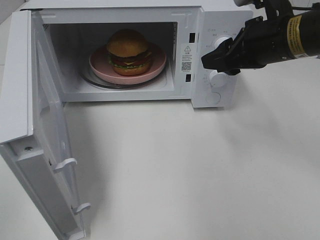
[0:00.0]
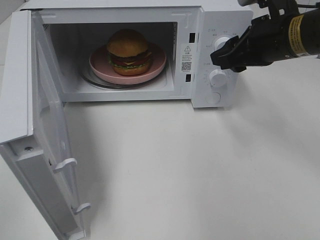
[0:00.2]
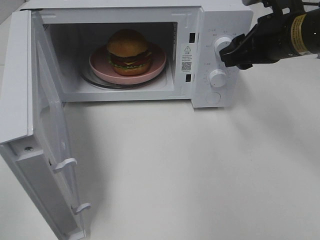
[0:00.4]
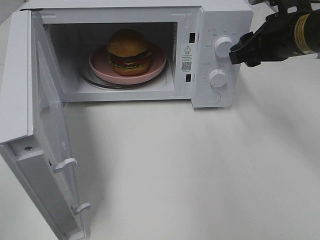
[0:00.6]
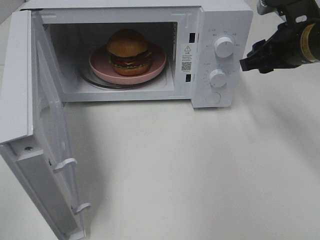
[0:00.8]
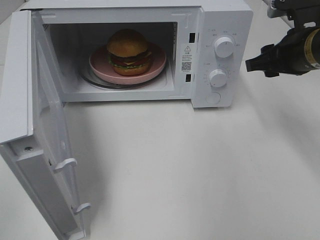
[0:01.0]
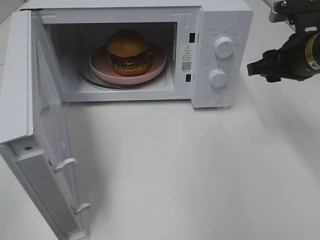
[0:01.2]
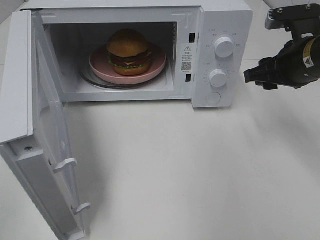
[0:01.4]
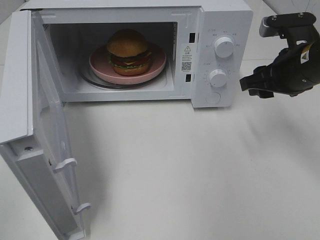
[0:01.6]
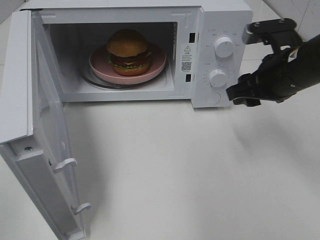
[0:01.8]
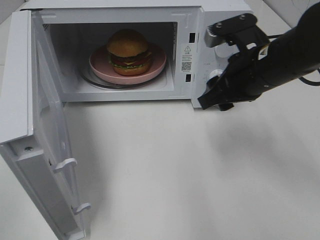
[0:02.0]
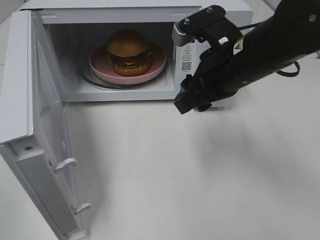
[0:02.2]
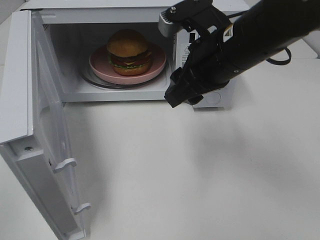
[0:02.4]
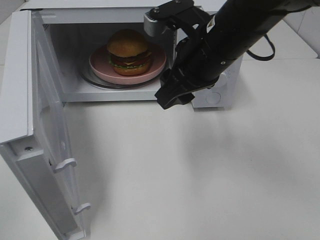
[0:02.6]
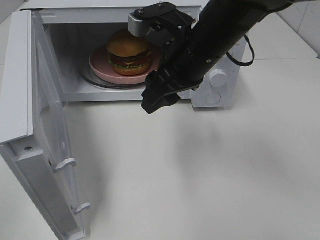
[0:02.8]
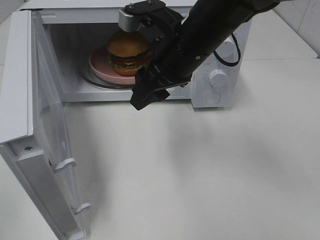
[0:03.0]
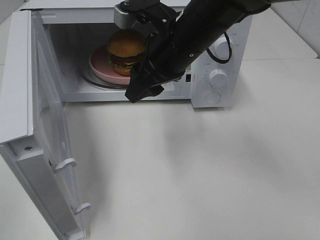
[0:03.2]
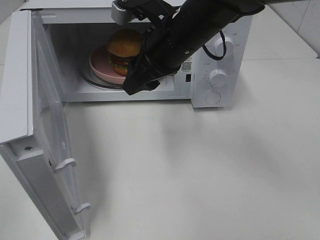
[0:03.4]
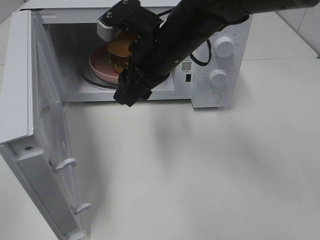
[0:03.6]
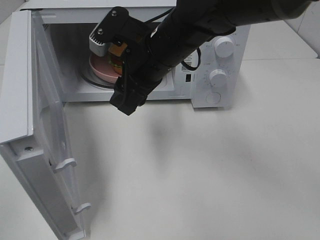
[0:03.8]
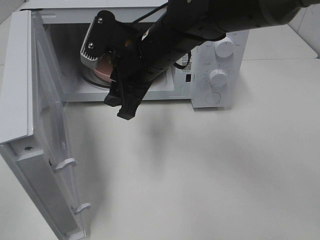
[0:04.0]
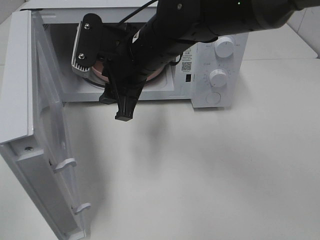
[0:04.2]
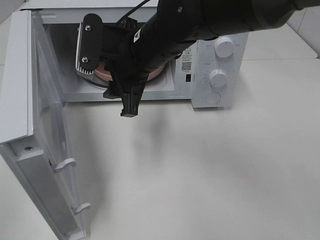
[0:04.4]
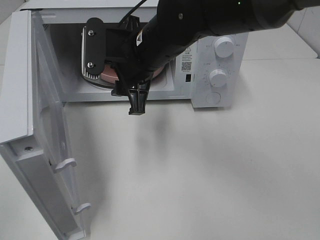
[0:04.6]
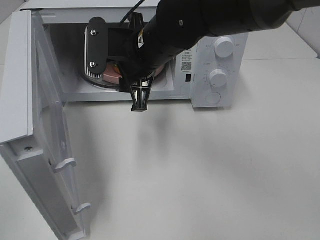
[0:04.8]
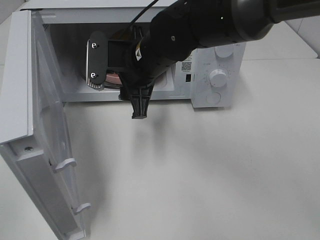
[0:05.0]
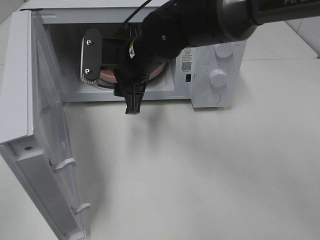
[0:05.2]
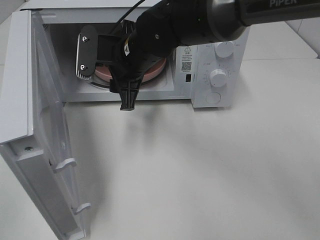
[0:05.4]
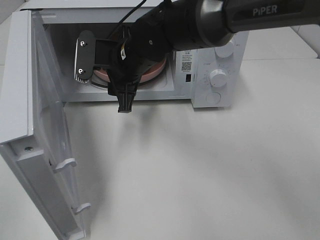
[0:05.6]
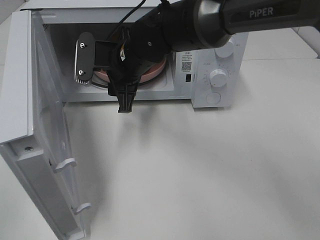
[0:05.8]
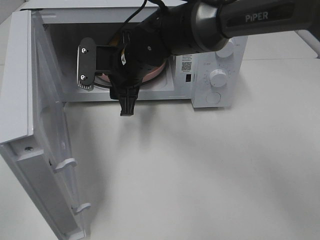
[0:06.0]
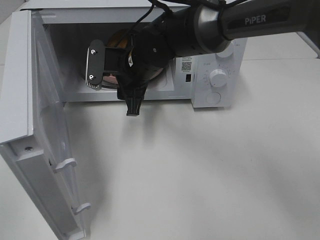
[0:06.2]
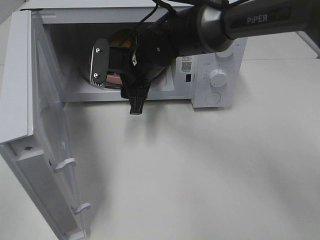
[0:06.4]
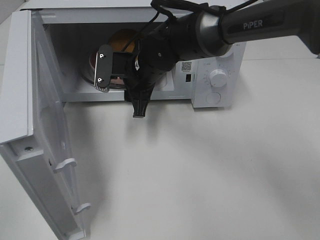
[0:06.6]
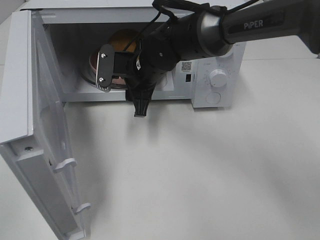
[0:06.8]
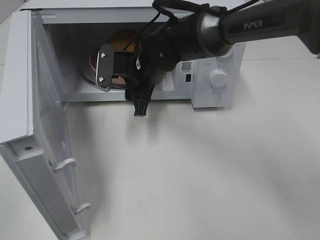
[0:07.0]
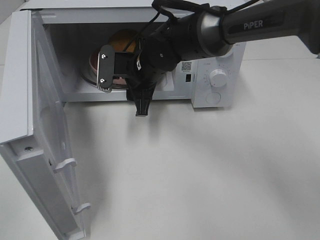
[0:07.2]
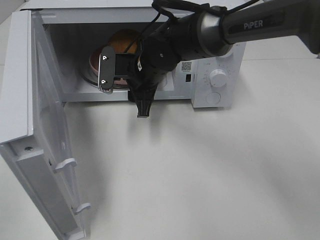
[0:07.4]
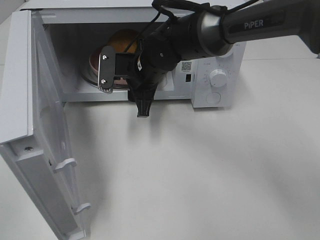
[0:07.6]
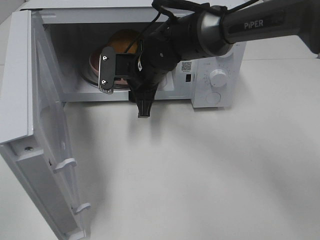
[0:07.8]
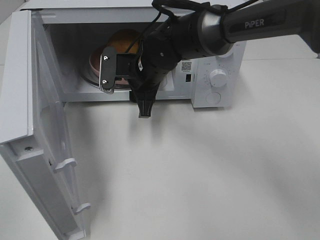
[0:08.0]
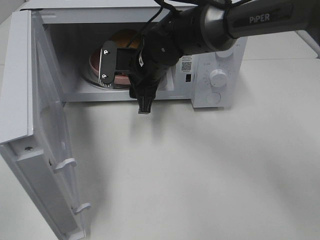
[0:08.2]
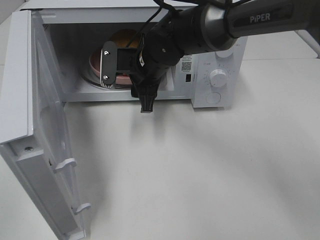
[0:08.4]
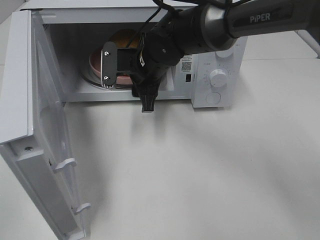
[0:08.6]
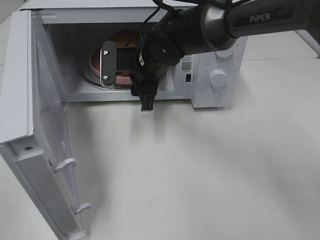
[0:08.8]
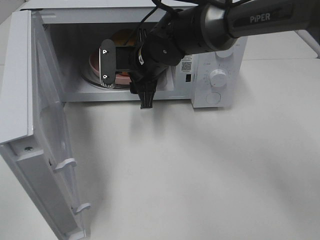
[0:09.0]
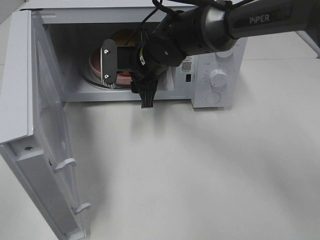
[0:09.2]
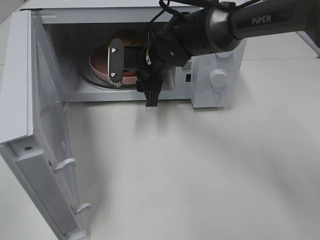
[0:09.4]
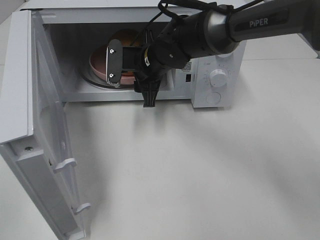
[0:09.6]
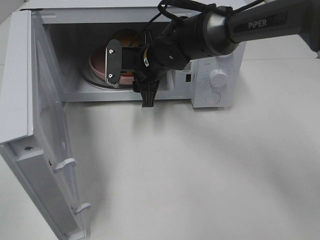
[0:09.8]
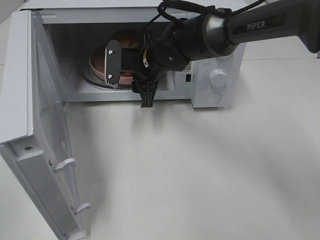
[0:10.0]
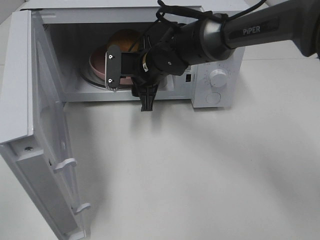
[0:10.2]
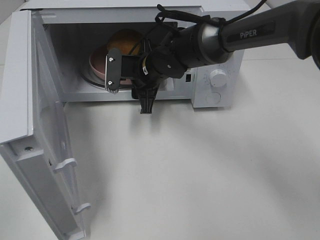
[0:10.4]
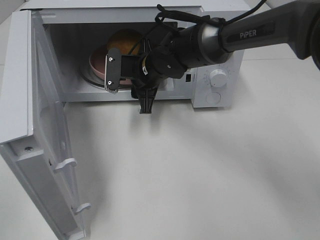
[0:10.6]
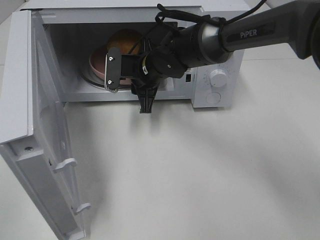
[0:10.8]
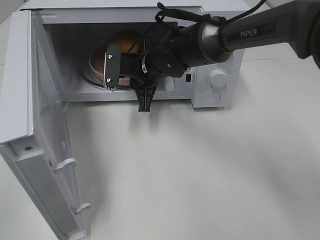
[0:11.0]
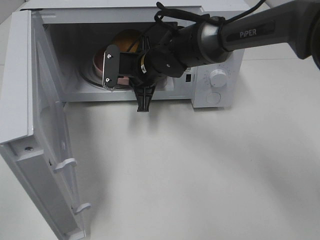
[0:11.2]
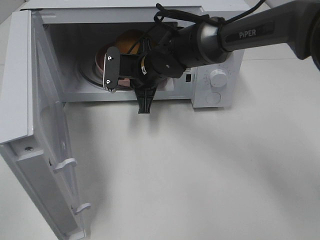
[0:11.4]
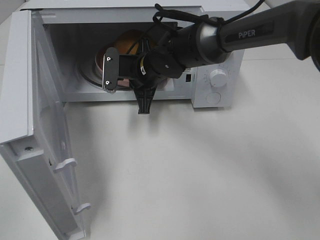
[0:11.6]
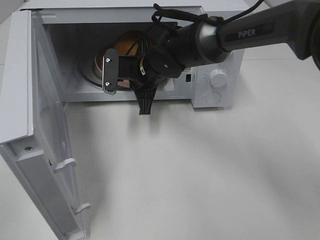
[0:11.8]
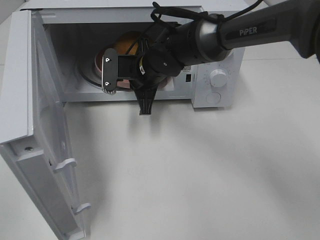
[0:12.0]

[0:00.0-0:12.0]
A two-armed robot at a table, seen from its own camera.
Task of the whole recording: Heat the burger.
Step, 0:00.0 to 0:11.2: Right hand: grab the plate with the hamburger.
0:00.0 to 0:01.6: The right gripper moves approximately 5 cm.
0:01.6 to 0:03.0: The right gripper goes approximately 20 cm to the left.
0:03.0 to 0:04.4: The right gripper shifts some 5 cm to the left.
0:04.4 to 0:06.0: The right gripper shifts by approximately 5 cm.
0:06.0 to 0:09.0: The grippers stay close to where they were, moving slightly.
0:09.0 to 0:10.4: There are only small adjustments of the grippers.
0:10.4 to 0:12.0: The right gripper closes.

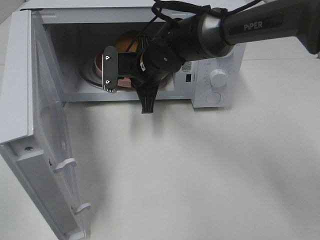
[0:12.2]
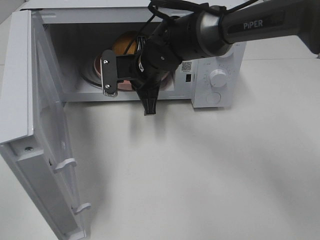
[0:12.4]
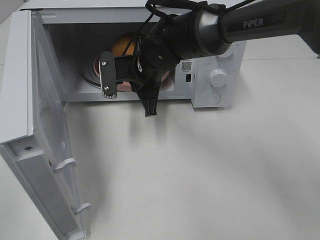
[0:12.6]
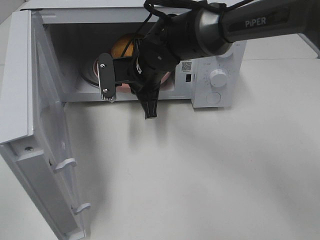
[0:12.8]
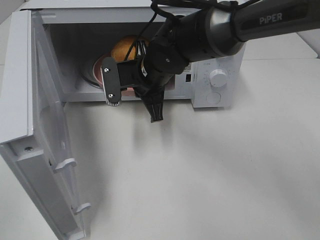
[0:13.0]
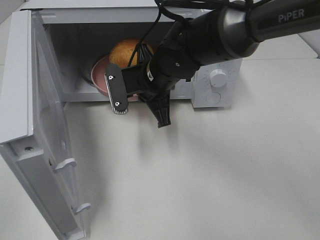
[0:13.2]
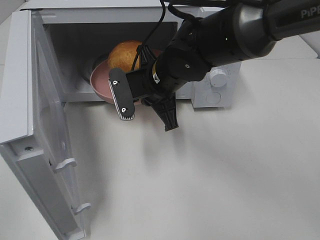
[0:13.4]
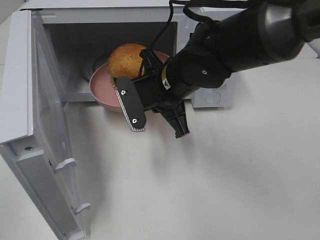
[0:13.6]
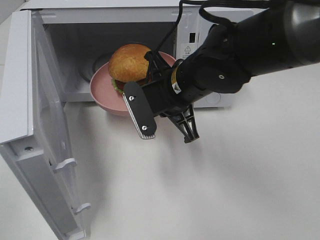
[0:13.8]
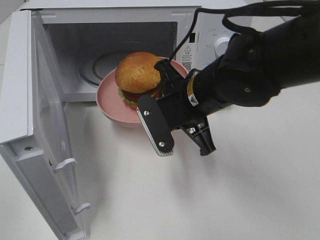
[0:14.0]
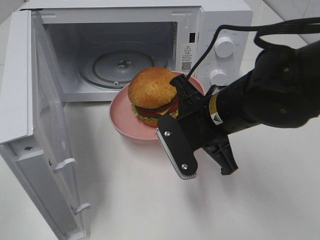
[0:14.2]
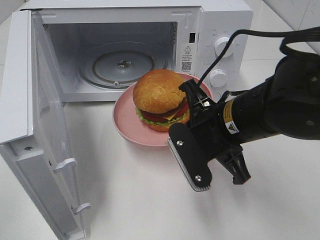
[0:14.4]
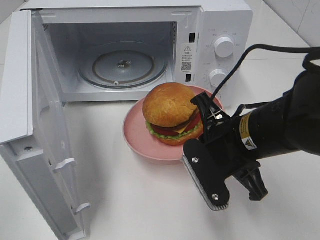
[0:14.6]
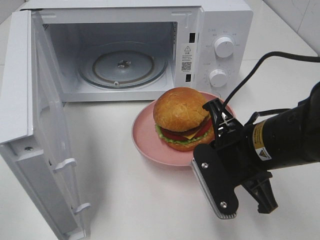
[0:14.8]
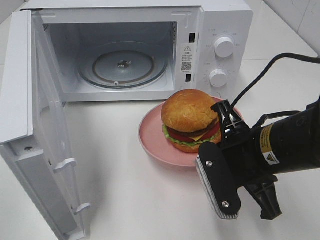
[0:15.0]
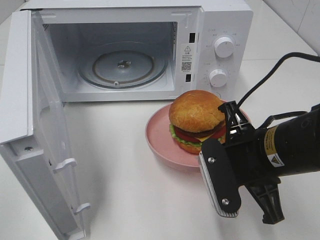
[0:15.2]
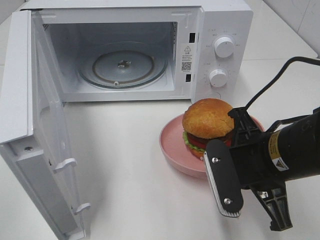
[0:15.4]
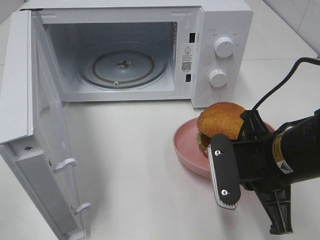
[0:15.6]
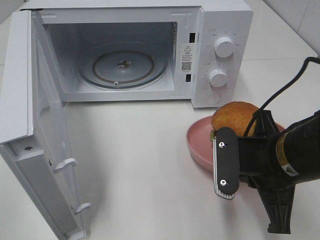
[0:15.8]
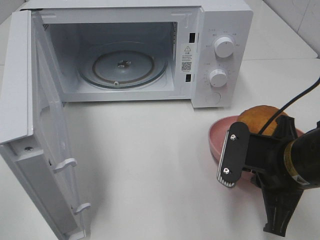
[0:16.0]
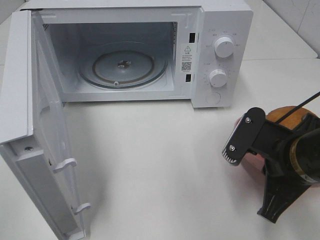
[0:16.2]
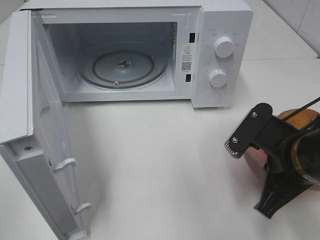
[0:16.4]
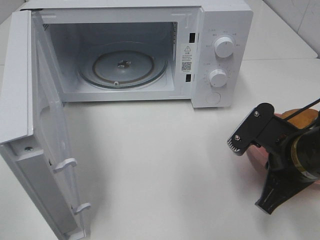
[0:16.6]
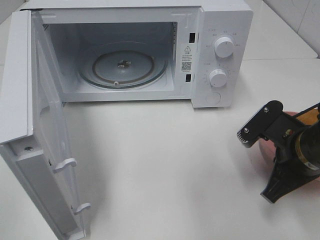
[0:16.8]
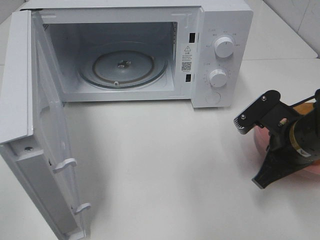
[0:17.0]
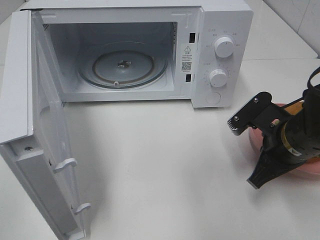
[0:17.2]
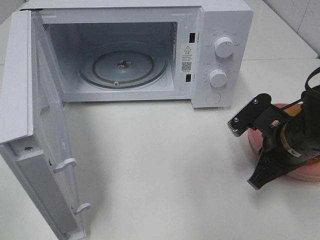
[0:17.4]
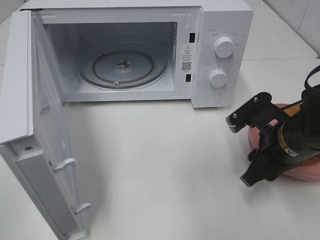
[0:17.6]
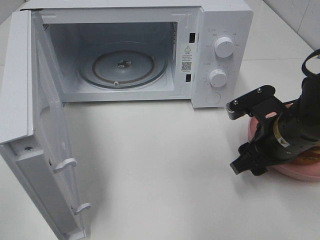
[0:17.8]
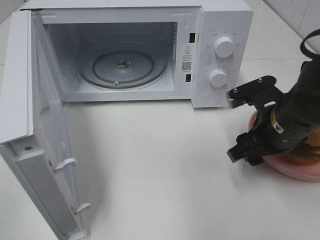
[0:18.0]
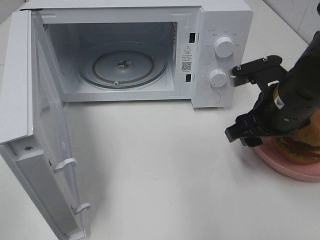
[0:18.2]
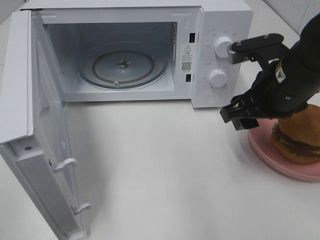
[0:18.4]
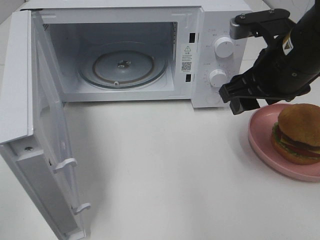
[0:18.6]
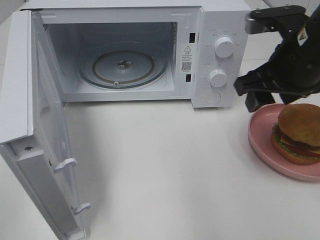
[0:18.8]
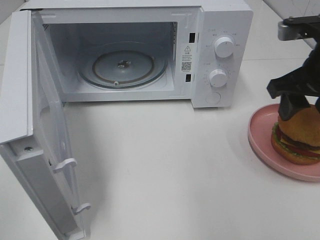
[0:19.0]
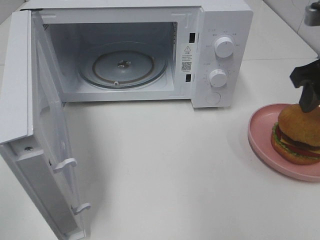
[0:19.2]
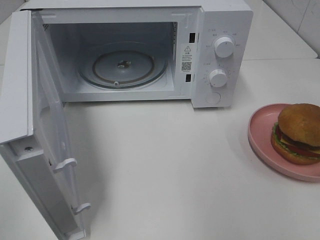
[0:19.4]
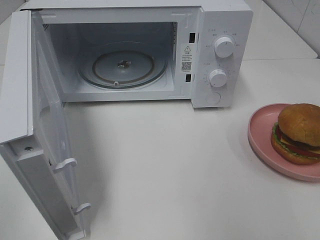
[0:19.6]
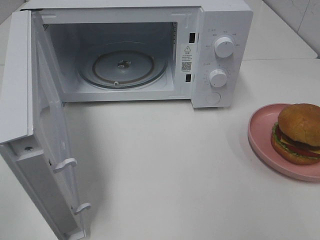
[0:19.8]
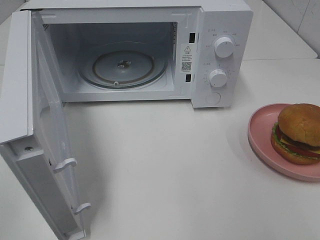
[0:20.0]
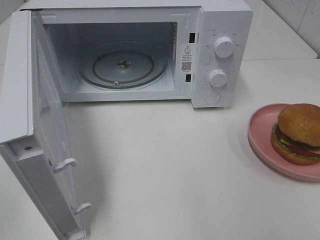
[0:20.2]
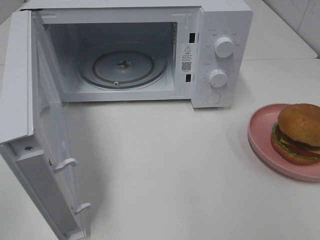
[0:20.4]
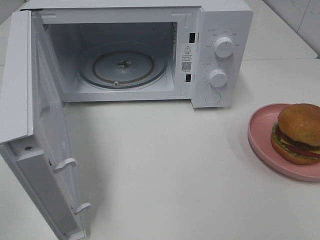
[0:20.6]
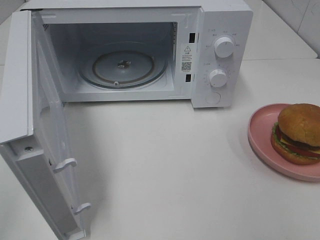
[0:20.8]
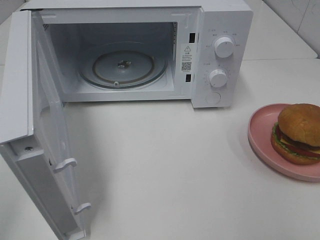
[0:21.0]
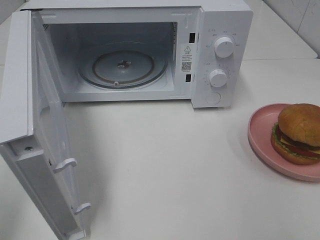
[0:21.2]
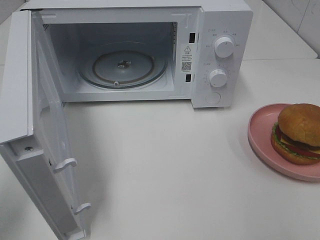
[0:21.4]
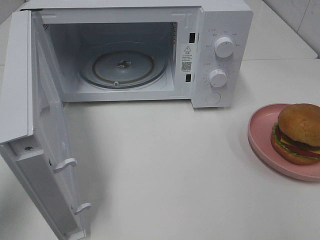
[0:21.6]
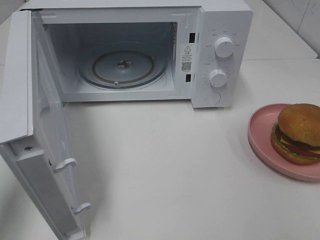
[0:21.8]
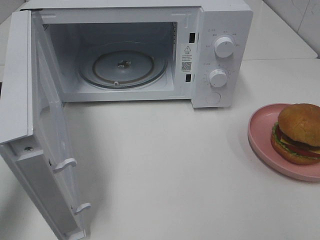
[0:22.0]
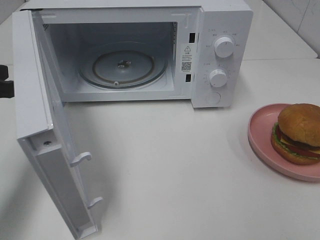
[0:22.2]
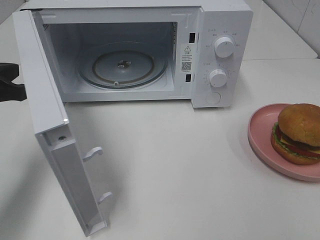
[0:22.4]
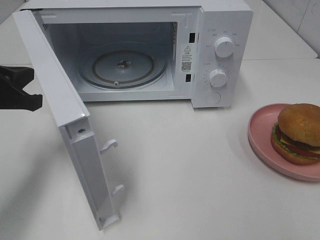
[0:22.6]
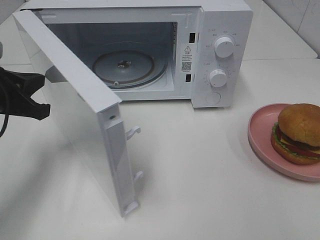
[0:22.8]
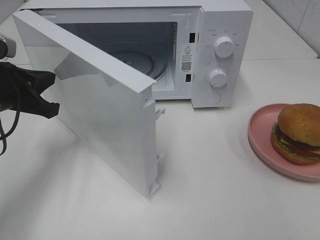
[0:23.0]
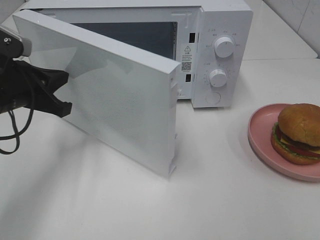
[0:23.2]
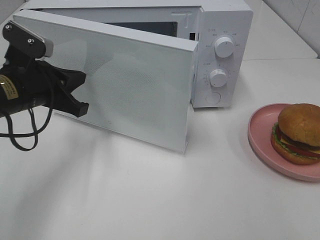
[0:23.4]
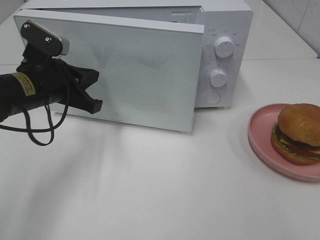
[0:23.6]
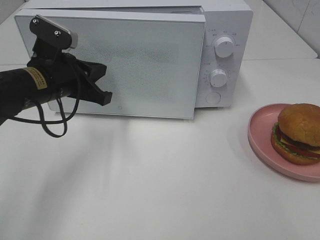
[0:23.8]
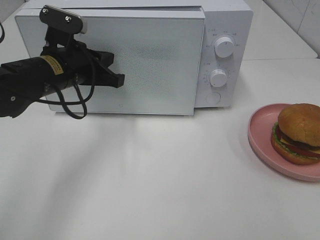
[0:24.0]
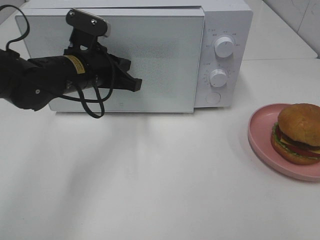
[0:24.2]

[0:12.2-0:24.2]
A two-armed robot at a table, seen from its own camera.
Task of the whole recording: Heat the burger.
Step, 0:12.2 to 0:17.4: Right hand: place the plate on the table.
0:12.2 to 0:13.8: The right gripper heads backward and to the right, covering roughly 10 cm.
0:13.8 to 0:15.2: The right gripper travels backward and to the right by some 15 cm.
0:15.2 to 0:16.6: The right gripper ends up approximately 5 cm from where it was.
0:16.6 to 0:18.2: The right gripper heads forward, covering some 5 cm, and opens up.
0:18.2 to 0:19.8: The right gripper shifts roughly 25 cm upward, backward and to the right.
0:21.2 to 0:22.6: The left gripper shifts about 20 cm forward and downward.
0:22.6 to 0:24.2: The left gripper is displaced to the right and forward by roughly 15 cm.
